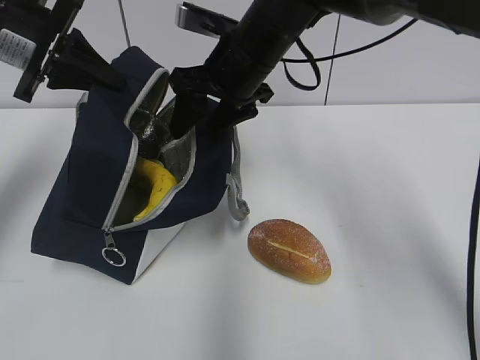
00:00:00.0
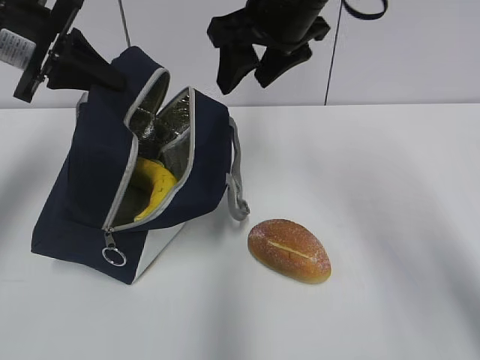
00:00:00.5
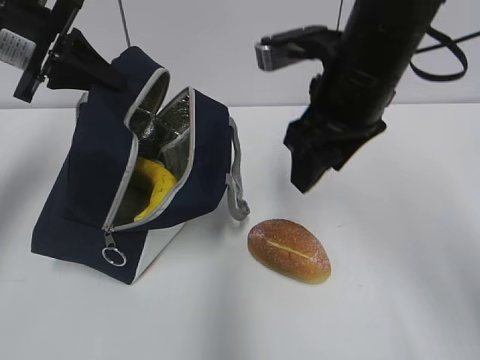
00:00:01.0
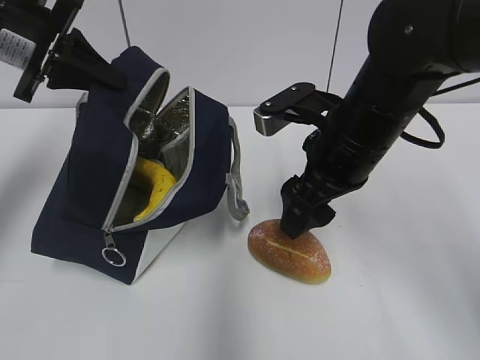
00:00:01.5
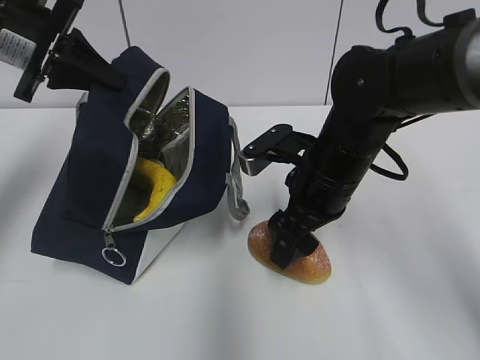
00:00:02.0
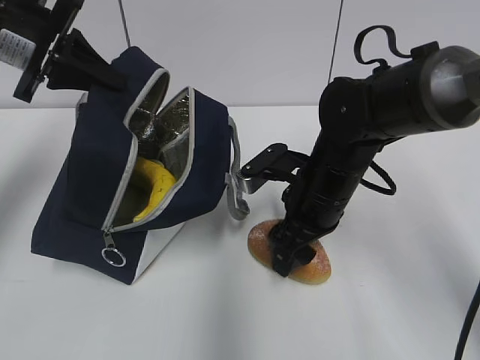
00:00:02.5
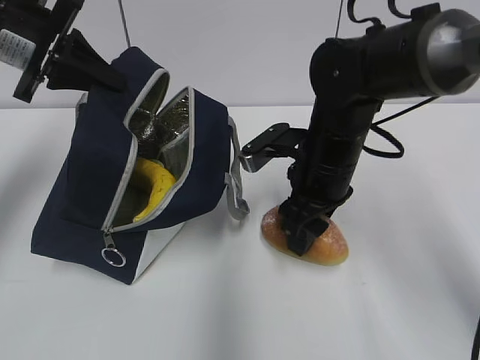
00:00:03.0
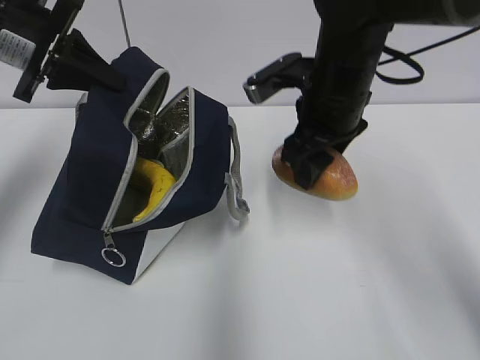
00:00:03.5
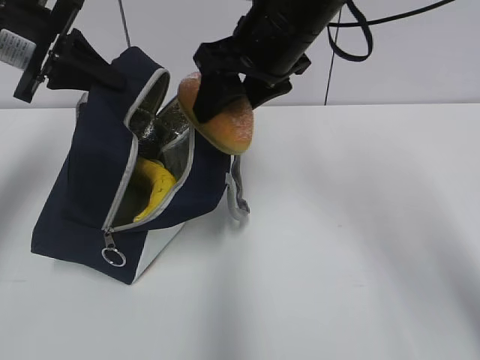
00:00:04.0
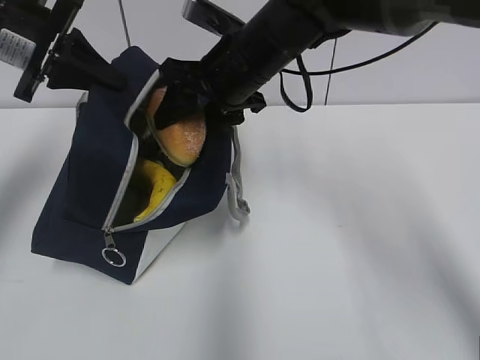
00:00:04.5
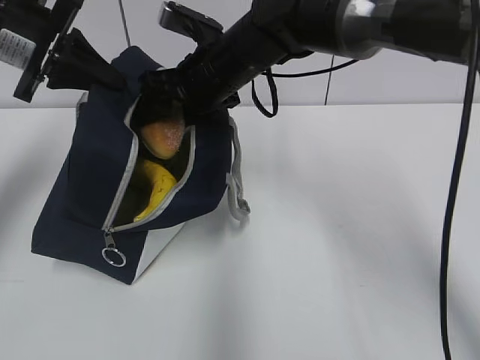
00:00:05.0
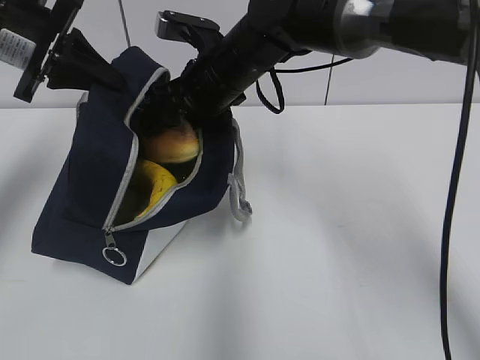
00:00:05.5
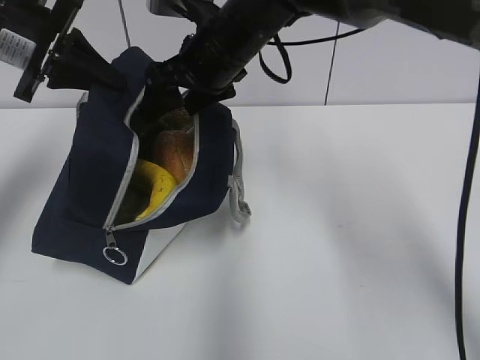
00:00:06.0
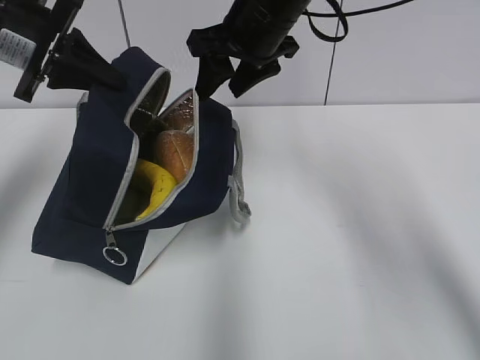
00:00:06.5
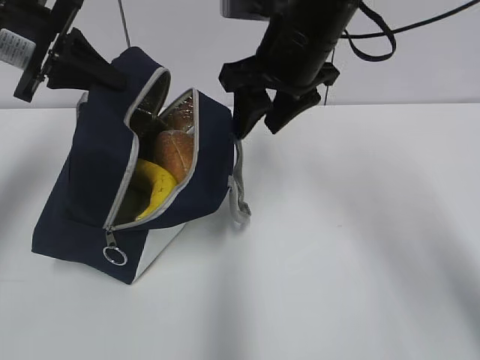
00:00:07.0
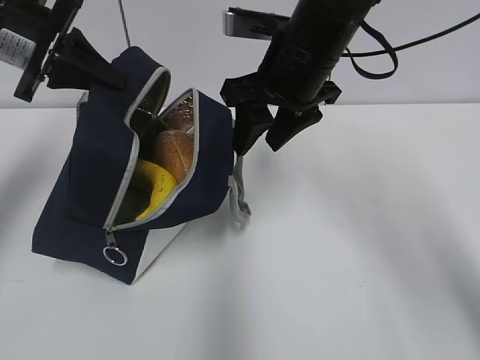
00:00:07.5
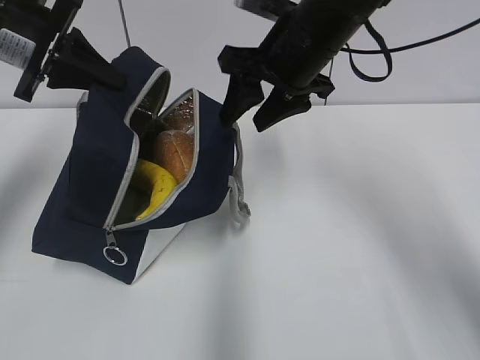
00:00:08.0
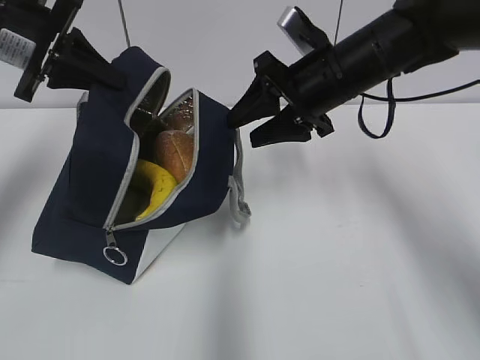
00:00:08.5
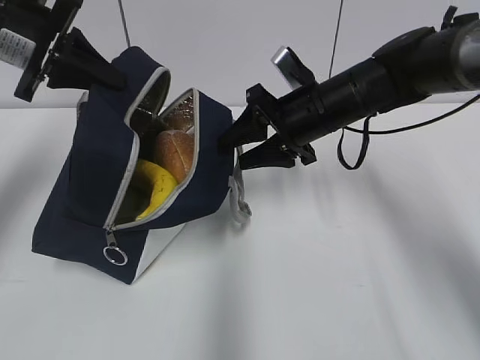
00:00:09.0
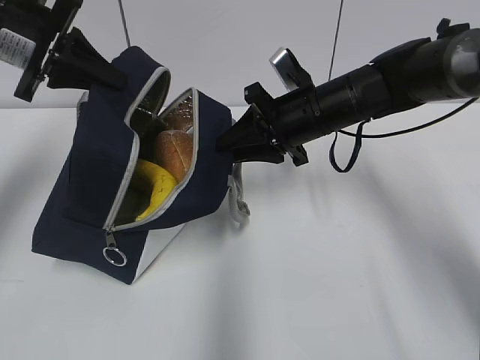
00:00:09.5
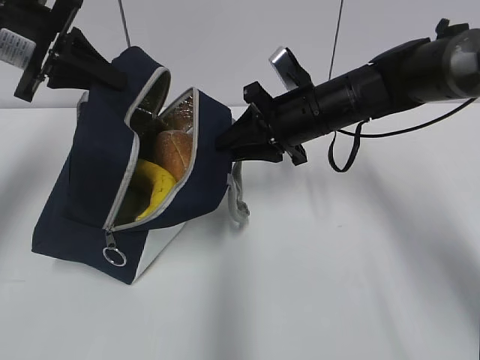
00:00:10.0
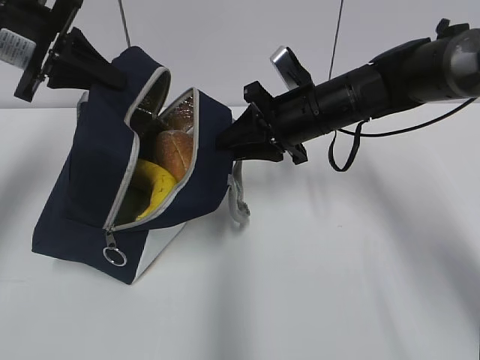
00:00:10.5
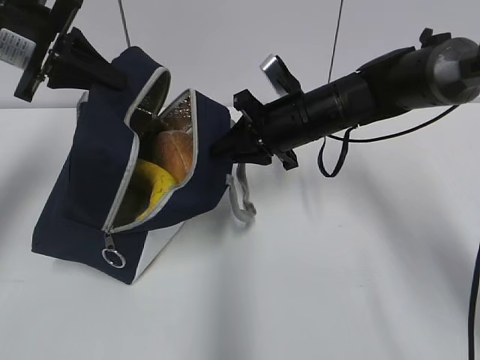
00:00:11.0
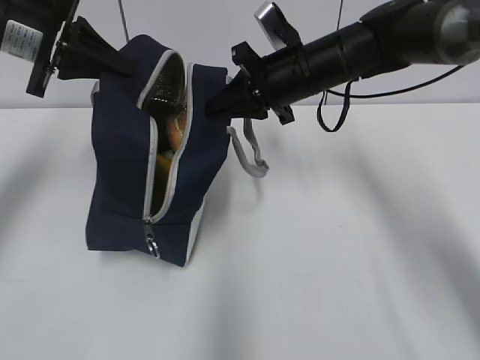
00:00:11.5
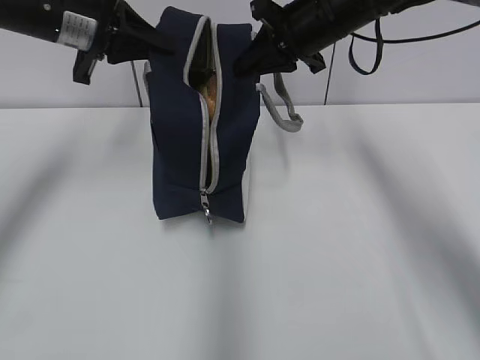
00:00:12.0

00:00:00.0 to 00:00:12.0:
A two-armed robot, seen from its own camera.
Step, 00:00:00.0 to 00:00:03.0: Grab the bread with your right hand.
Step, 00:00:06.5 to 00:00:10.0: Grab the lunch bag with your right hand.
00:00:00.0 to 00:00:02.0: The right gripper goes some 15 cm backward, downward and to the right.
00:00:02.0 to 00:00:04.0: The right gripper is displaced upward by approximately 15 cm.
00:00:04.0 to 00:00:06.0: The right gripper is displaced forward by some 5 cm.
00:00:06.0 to 00:00:08.0: The right gripper shifts some 10 cm to the right.
00:00:08.0 to 00:00:10.0: The right gripper heads downward, covering about 10 cm.
00:00:10.0 to 00:00:12.0: The right gripper is displaced upward by some 10 cm, and closes up, while the left gripper shifts by about 5 cm.

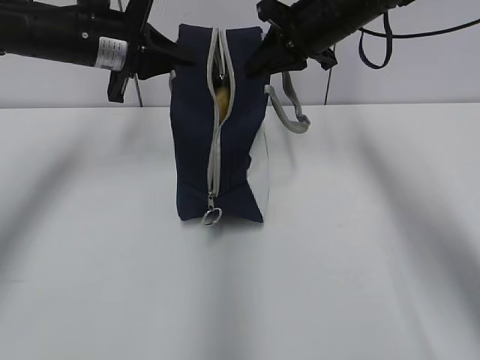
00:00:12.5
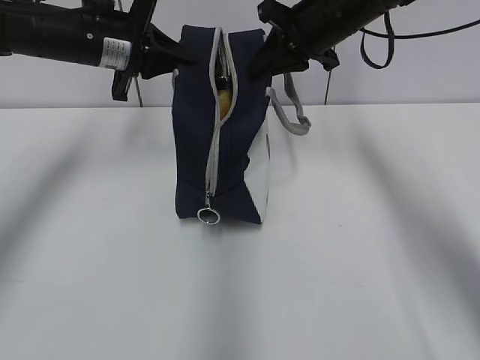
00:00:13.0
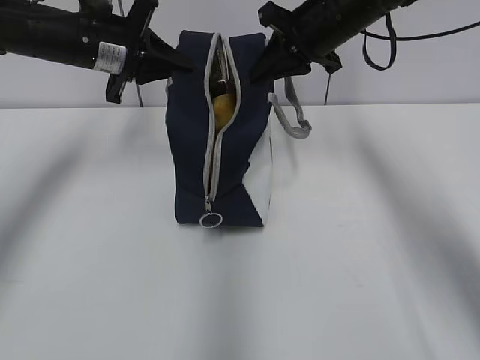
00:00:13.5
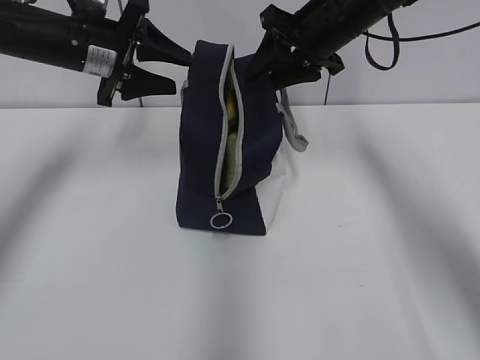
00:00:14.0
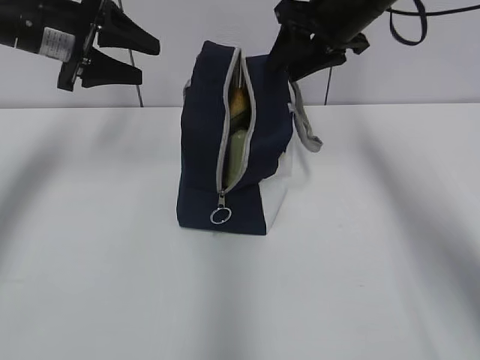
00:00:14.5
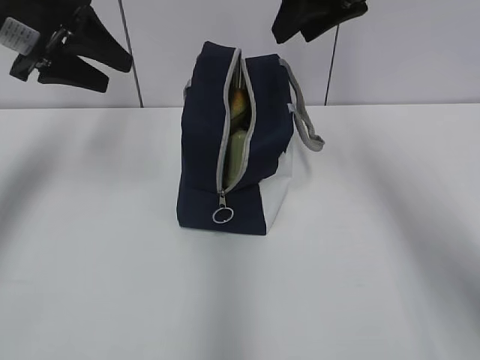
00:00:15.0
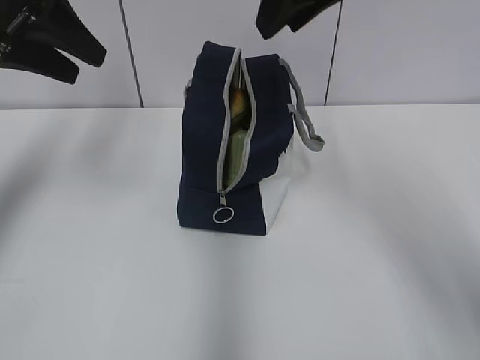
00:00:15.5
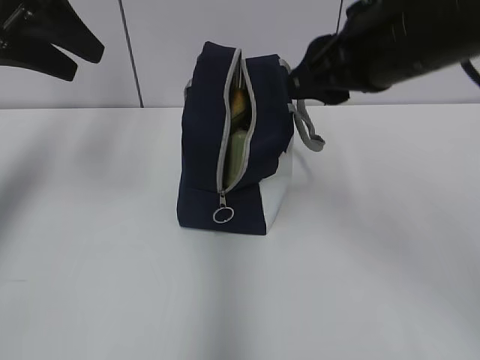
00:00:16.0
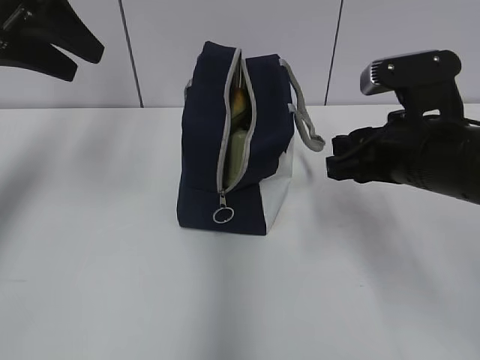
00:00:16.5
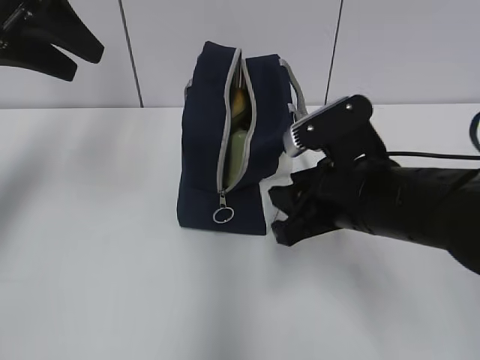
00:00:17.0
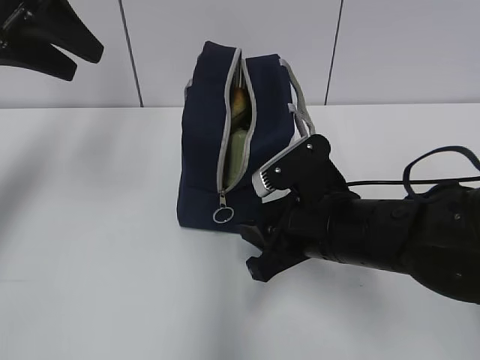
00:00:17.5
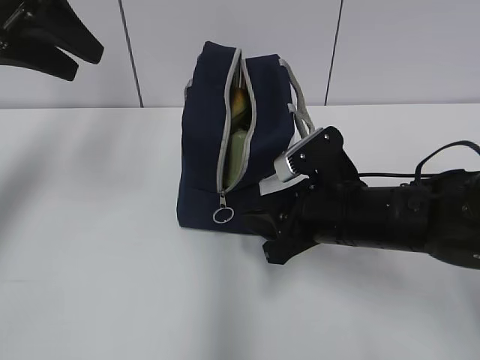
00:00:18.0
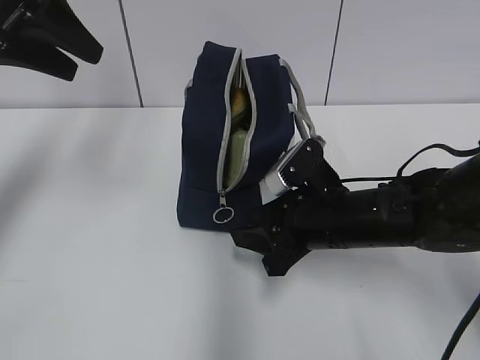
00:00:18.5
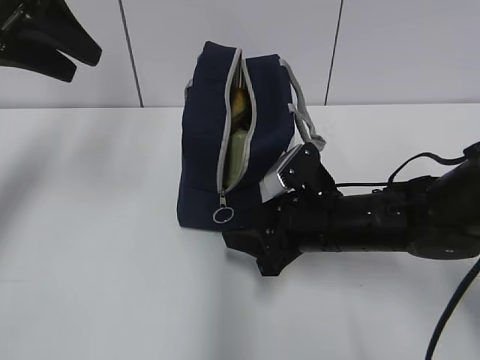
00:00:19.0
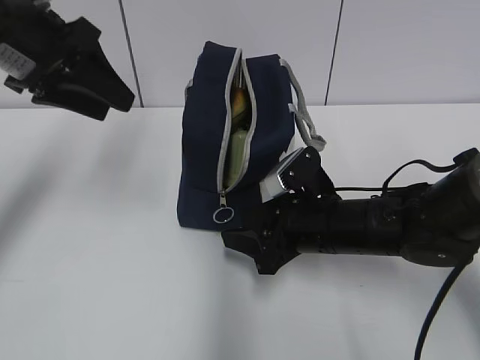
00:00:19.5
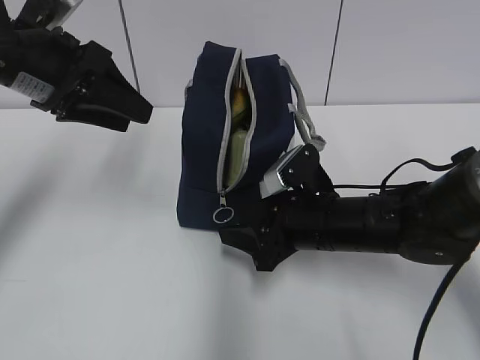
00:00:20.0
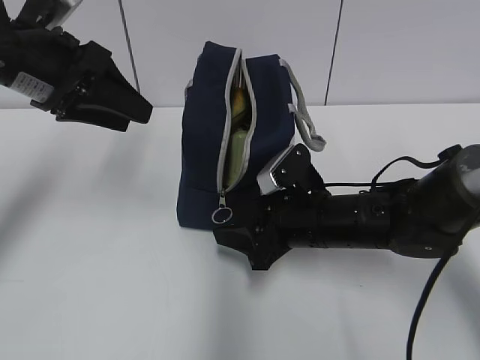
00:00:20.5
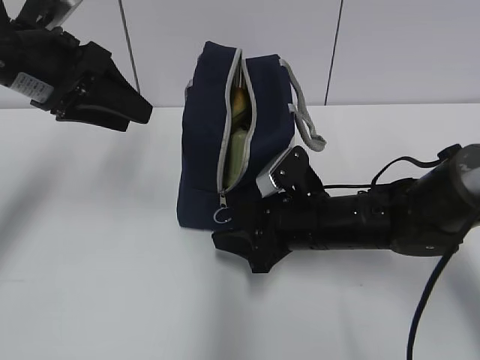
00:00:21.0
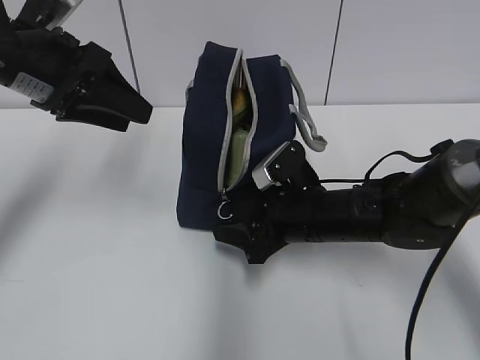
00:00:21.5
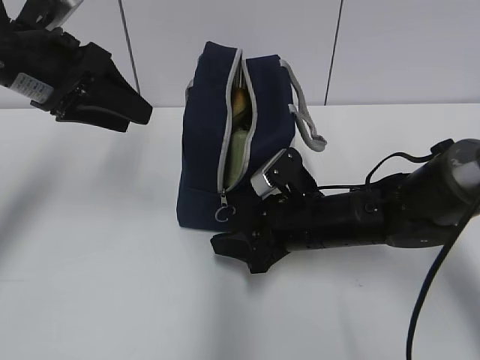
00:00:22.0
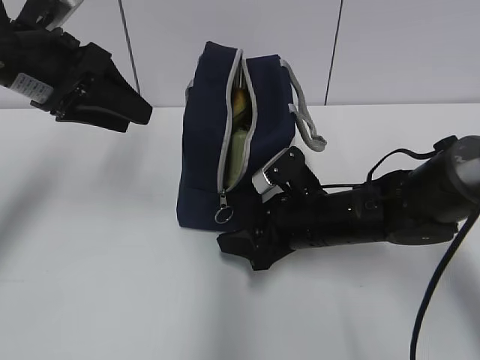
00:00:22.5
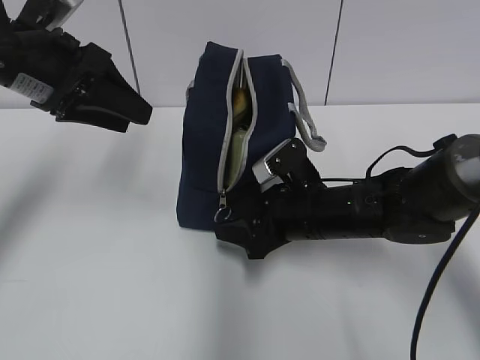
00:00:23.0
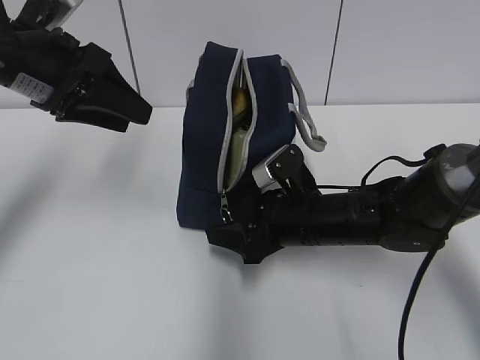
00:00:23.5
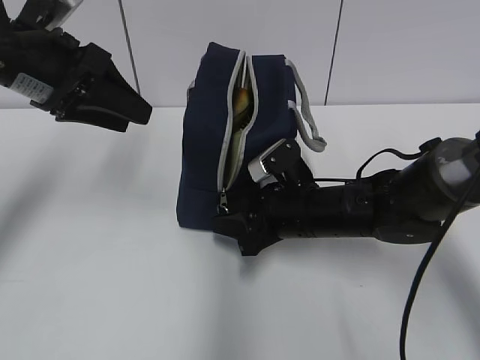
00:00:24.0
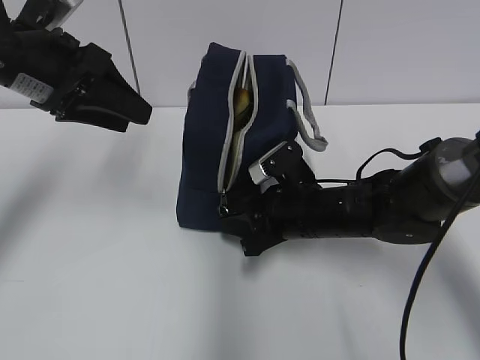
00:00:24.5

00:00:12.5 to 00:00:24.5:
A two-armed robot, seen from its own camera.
00:00:12.5 to 00:00:14.5: The left gripper changes place by about 5 cm, and opens up. Meanwhile the right gripper opens.
00:00:14.5 to 00:00:16.5: The left gripper moves backward and upward, roughly 10 cm, while the right gripper travels backward and downward by about 20 cm.
00:00:16.5 to 00:00:18.5: The right gripper heads downward and to the left, covering some 10 cm.
00:00:18.5 to 00:00:20.5: The left gripper goes roughly 5 cm downward.
00:00:20.5 to 00:00:22.5: The grippers stay close to where they were, moving slightly.
00:00:22.5 to 00:00:24.5: The right gripper closes up.

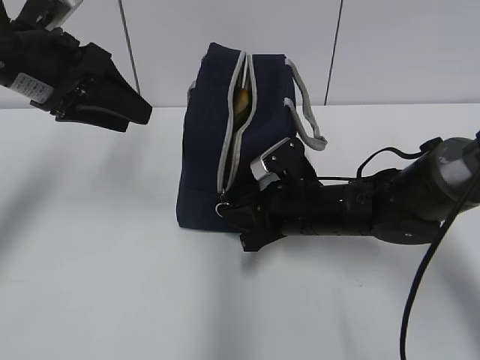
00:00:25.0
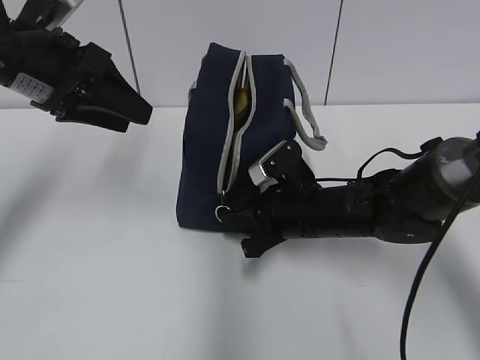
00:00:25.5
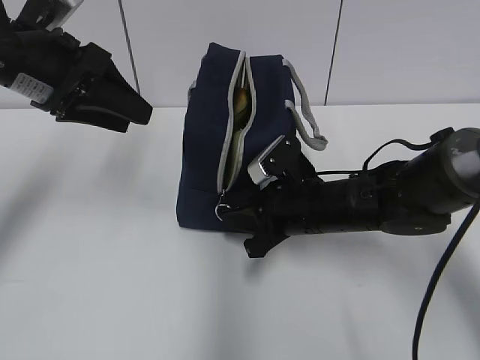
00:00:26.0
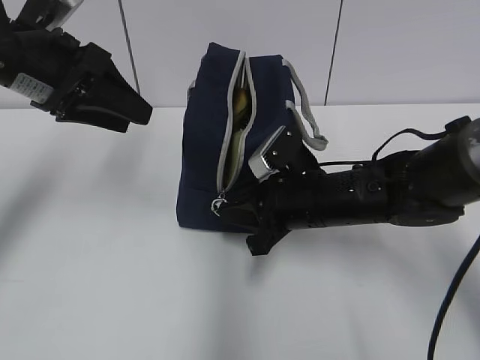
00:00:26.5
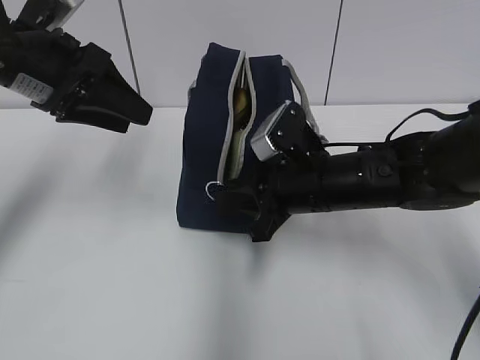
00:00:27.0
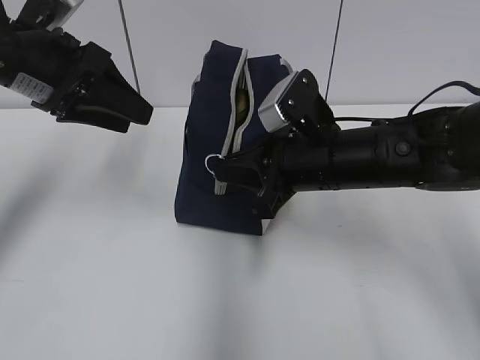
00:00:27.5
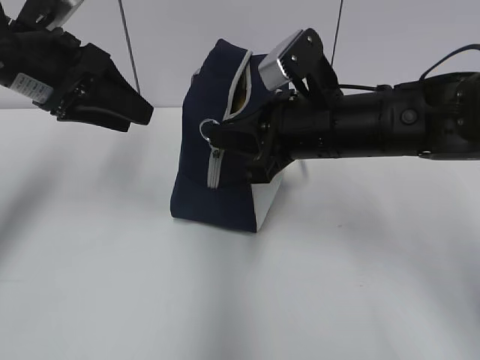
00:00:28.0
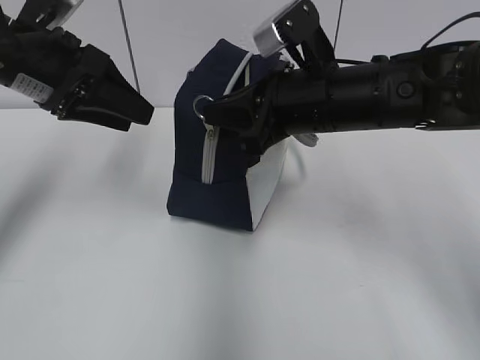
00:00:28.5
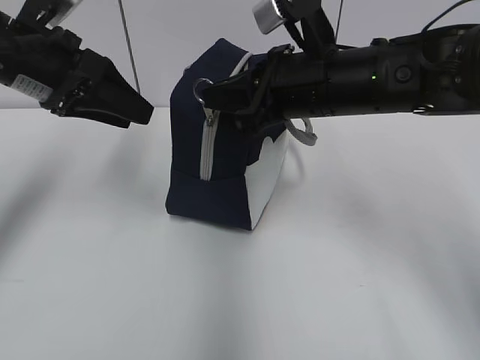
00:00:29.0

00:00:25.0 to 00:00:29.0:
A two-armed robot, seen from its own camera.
00:00:25.0 to 00:00:27.0: The right gripper moves upward, approximately 5 cm.
00:00:27.0 to 00:00:29.0: The right gripper goes approximately 10 cm upward.
